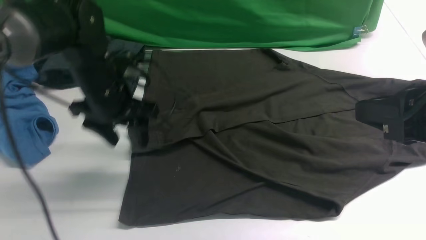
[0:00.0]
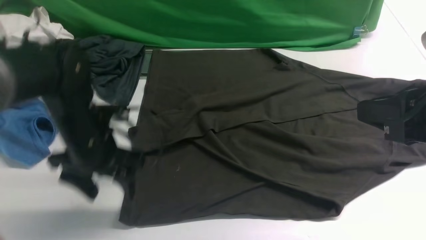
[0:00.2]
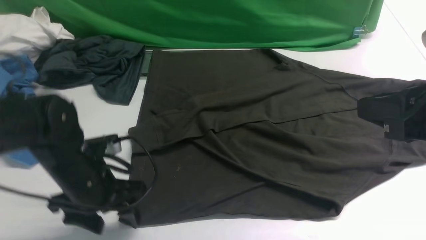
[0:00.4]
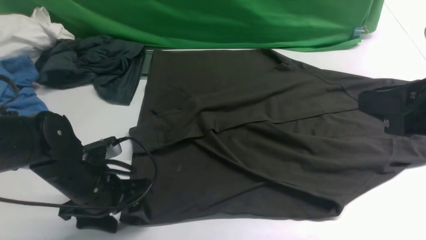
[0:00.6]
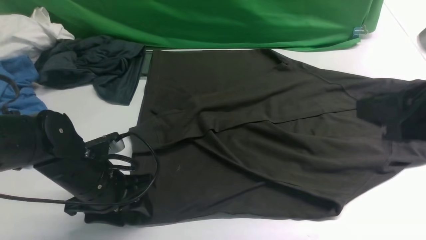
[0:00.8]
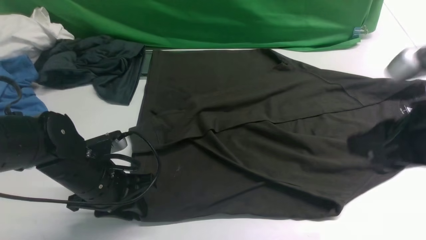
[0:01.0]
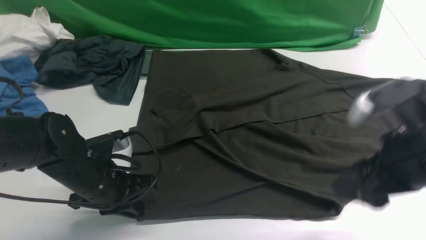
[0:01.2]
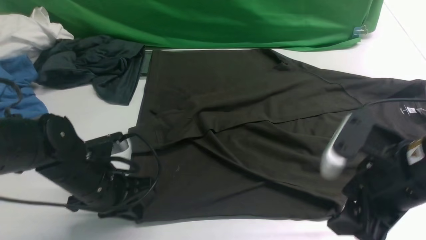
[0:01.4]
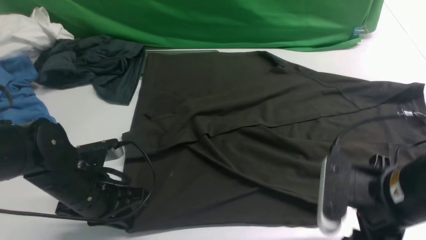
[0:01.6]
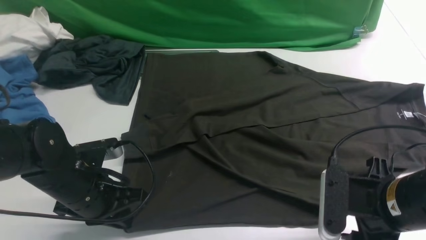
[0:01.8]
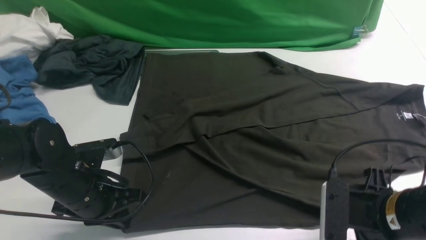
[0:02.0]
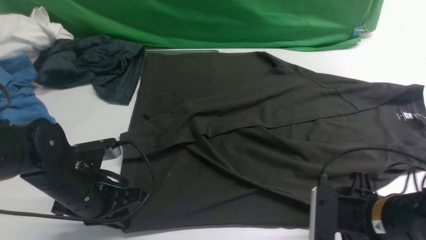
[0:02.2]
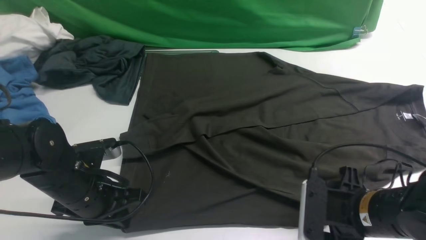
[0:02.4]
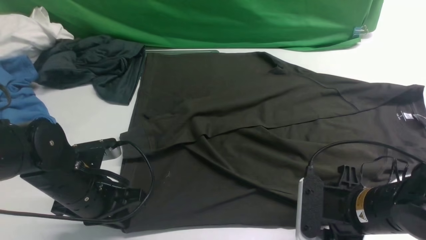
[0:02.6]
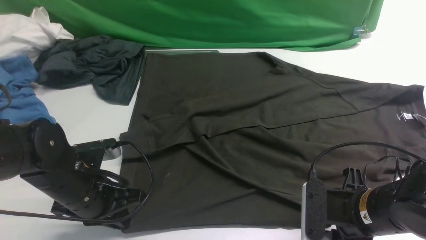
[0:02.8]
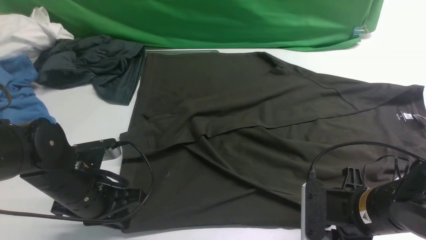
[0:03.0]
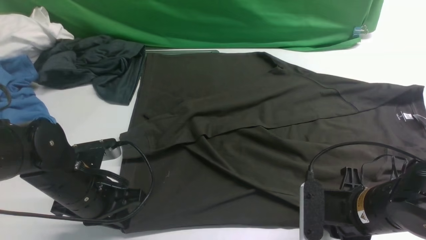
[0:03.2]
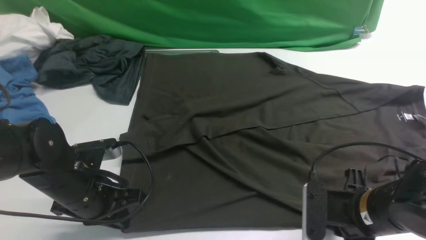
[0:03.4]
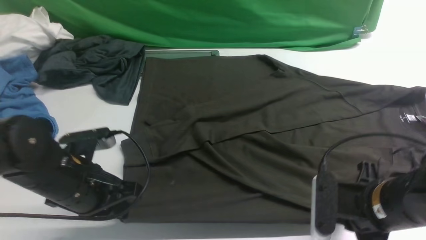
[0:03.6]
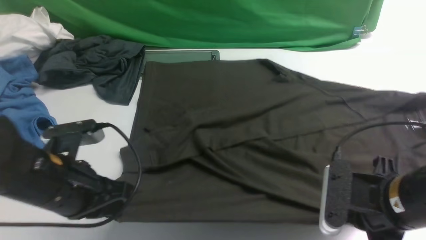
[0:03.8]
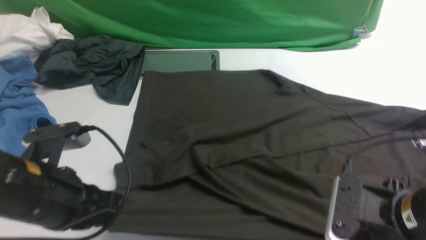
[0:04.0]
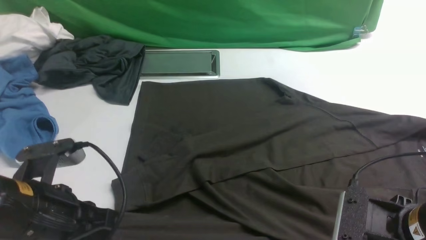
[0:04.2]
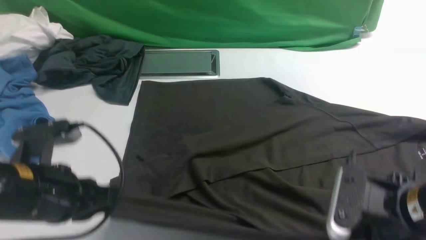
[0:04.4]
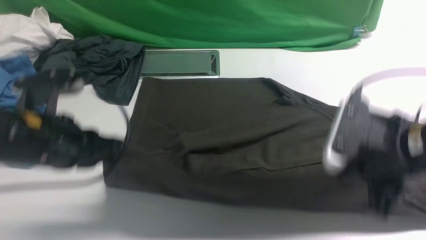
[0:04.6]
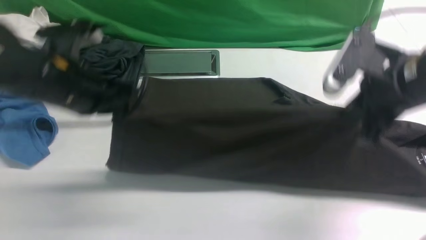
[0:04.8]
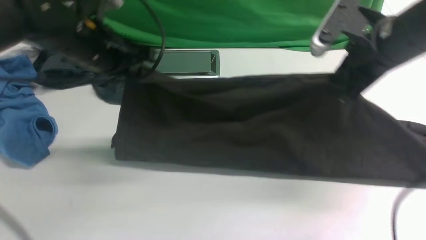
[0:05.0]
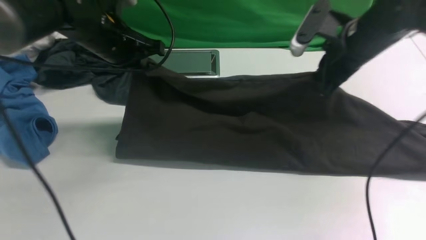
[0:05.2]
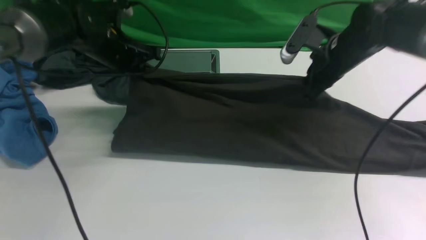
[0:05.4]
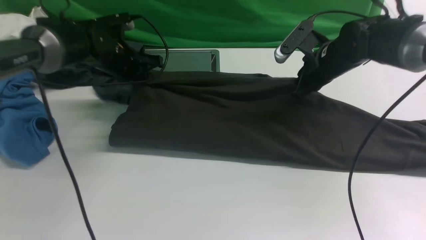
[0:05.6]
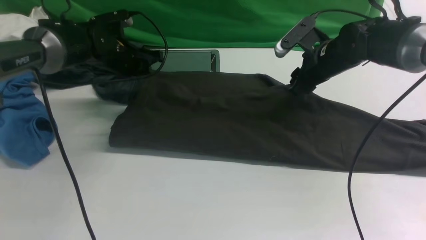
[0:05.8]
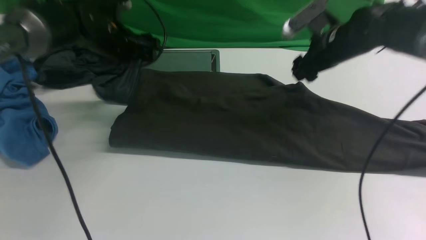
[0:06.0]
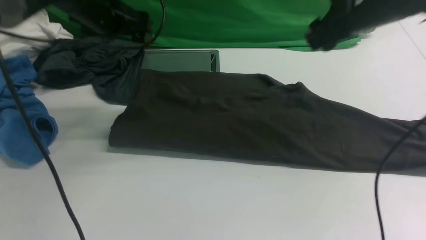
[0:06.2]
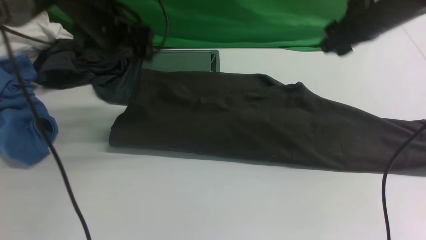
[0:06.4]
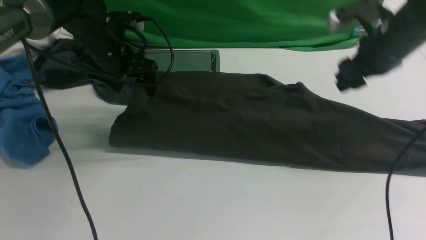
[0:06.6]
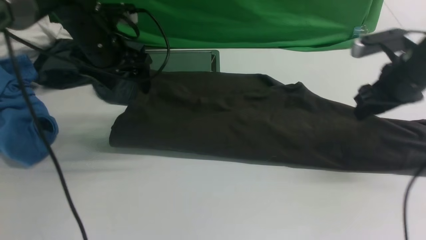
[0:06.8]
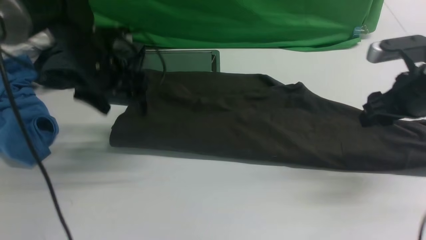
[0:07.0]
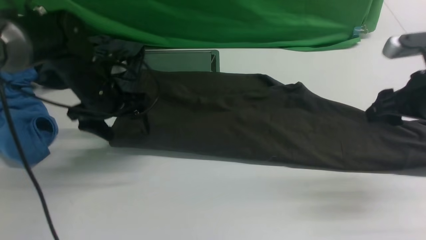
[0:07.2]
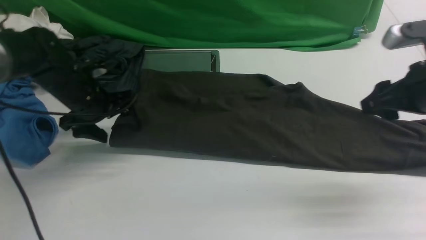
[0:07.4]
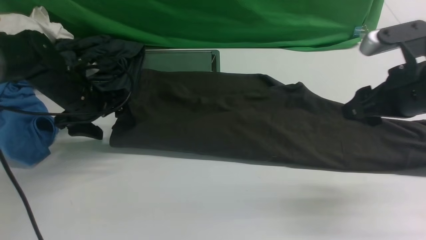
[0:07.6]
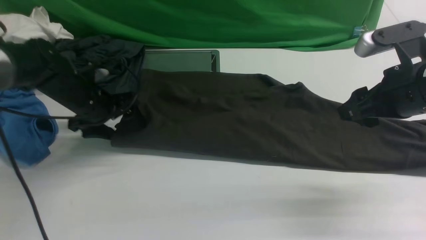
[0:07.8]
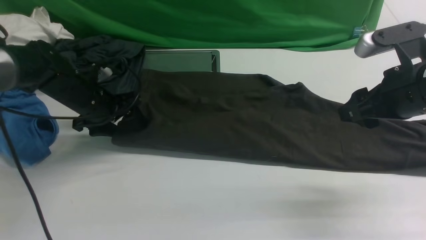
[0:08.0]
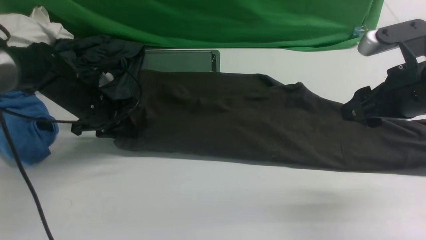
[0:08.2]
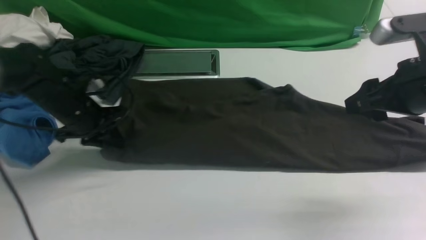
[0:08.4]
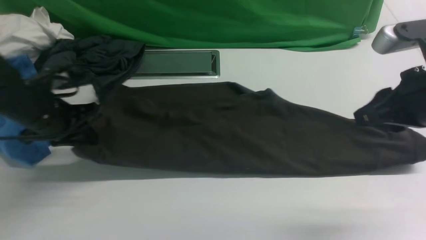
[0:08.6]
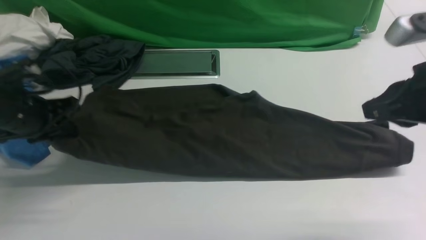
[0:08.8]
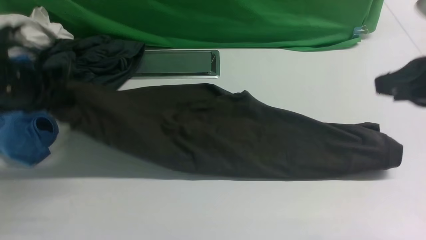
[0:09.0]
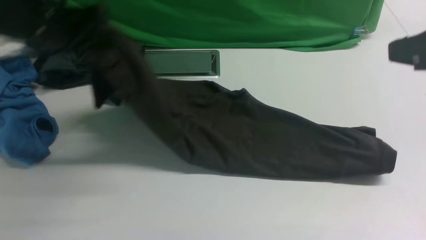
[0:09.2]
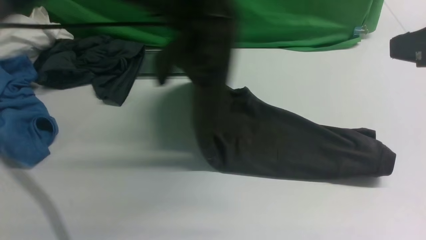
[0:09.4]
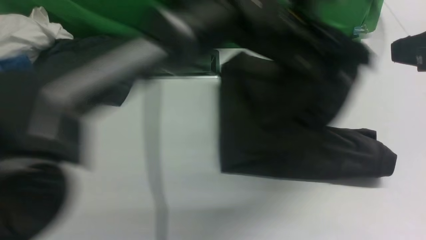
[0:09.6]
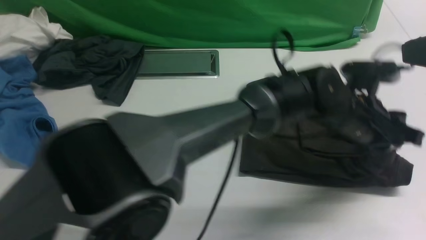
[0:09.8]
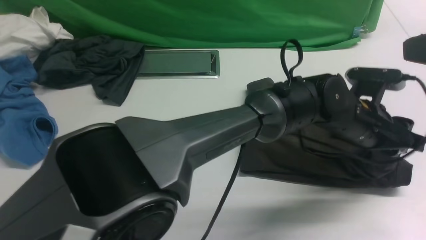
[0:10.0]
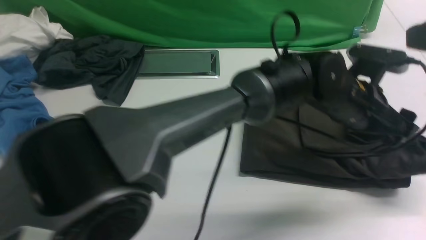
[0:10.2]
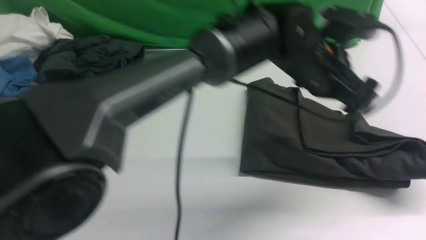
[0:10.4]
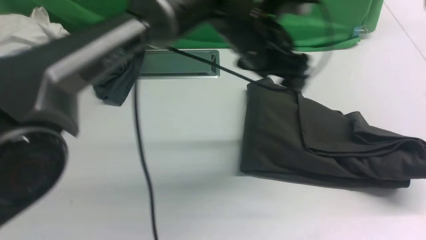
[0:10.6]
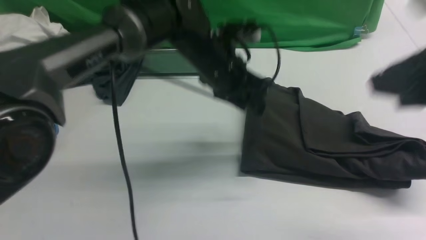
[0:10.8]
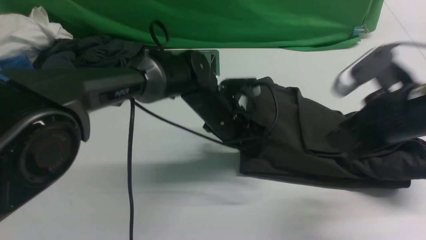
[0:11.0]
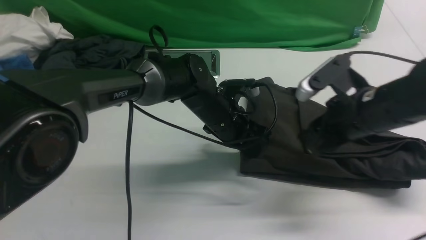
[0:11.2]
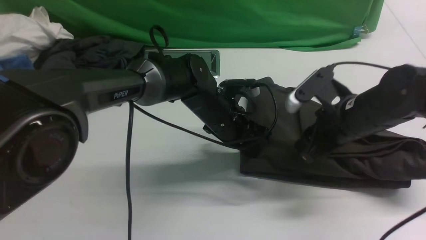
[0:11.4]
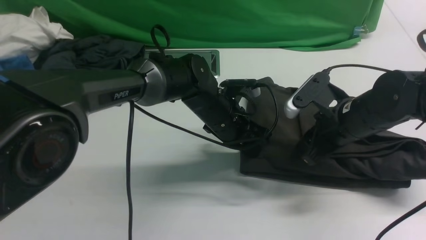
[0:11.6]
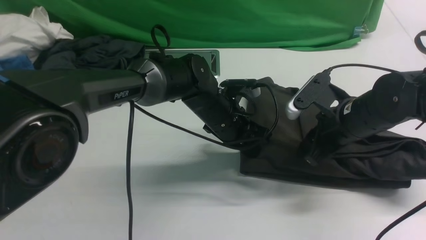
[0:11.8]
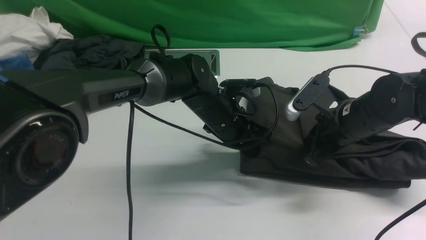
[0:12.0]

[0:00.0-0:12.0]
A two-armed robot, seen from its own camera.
Step, 0:00.2 to 0:03.6: use both arms simultaneously to clamp the lower edge of the clothing fabric.
Step, 0:04.0 to 0:06.0: use both arms to drag the lower edge of the fabric forward and fold it over the upper edge.
Step, 0:06.2 to 0:08.6: Hold the left edge of the fabric with your left arm.
Step, 0:08.8 to 0:10.2: Drag the left edge of the fabric to the left with your left arm and fold it to the right edge.
0:00.0 to 0:01.6: The right gripper shifts approximately 10 cm downward, and opens its fingers, while the left gripper goes about 15 cm backward and downward, and closes up.
0:01.6 to 0:03.0: The right gripper shifts approximately 5 cm downward, and closes up.
0:03.0 to 0:04.4: The two grippers go roughly 10 cm upward. The right gripper closes its fingers.
0:04.4 to 0:06.0: The two grippers go some 25 cm forward. The right gripper opens; the left gripper opens up.
0:06.0 to 0:07.6: The left gripper moves downward and backward, some 10 cm; the right gripper travels backward by some 15 cm.
0:07.6 to 0:09.0: The two grippers go about 10 cm upward and backward. The right gripper closes. The left gripper closes.
0:09.0 to 0:10.4: The right gripper shifts some 5 cm upward. Meanwhile the left gripper travels to the right by roughly 35 cm, and opens.
0:10.4 to 0:12.0: The left gripper moves downward and to the left, roughly 15 cm, and closes its fingers. The right gripper is displaced downward and forward by some 30 cm, and opens, then closes once more.

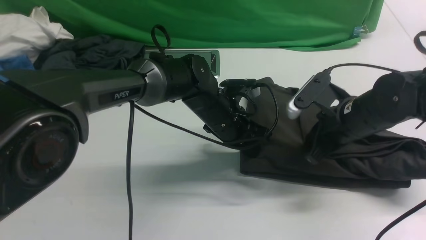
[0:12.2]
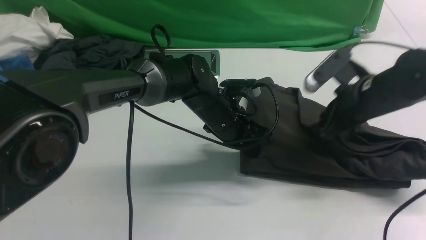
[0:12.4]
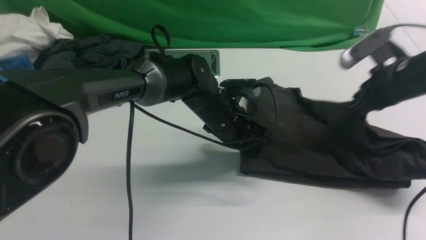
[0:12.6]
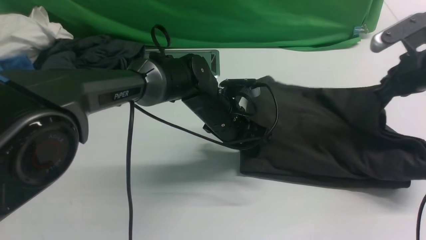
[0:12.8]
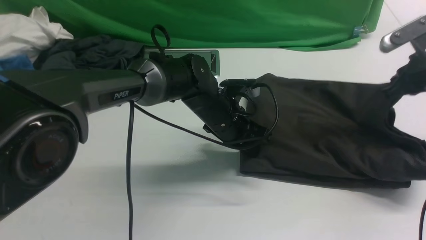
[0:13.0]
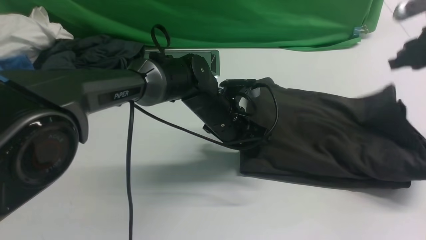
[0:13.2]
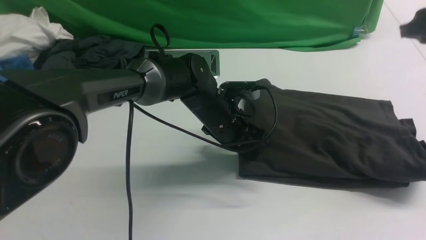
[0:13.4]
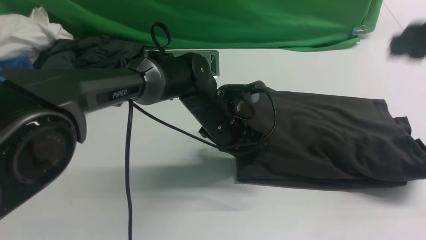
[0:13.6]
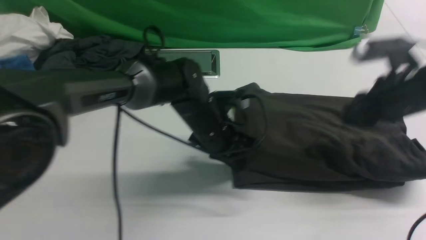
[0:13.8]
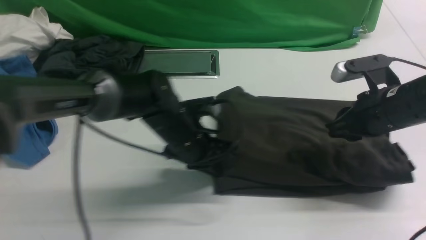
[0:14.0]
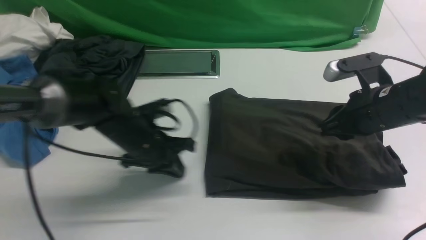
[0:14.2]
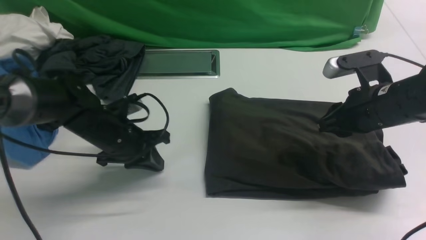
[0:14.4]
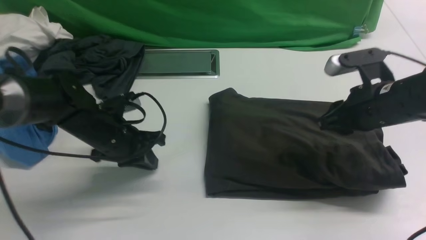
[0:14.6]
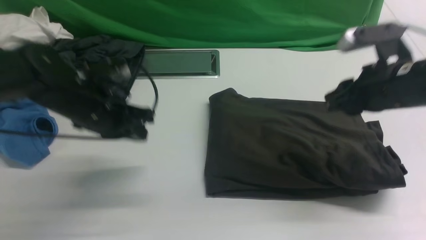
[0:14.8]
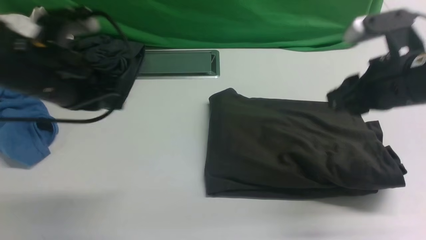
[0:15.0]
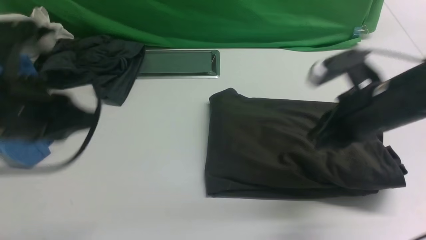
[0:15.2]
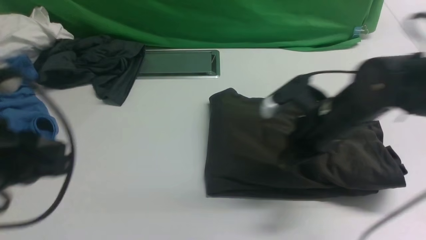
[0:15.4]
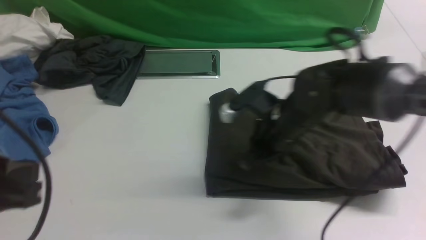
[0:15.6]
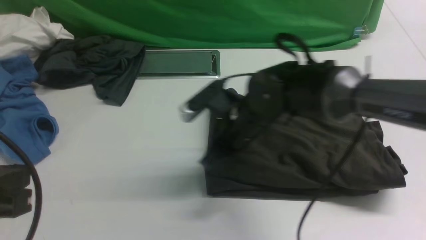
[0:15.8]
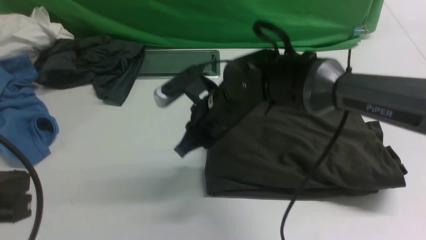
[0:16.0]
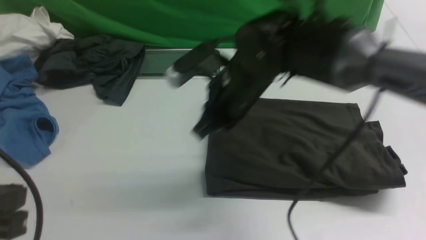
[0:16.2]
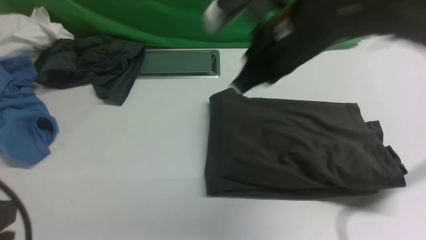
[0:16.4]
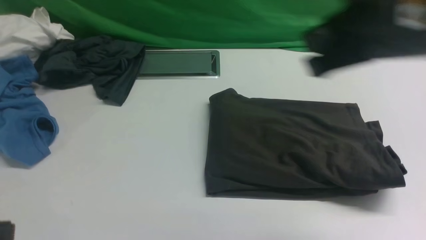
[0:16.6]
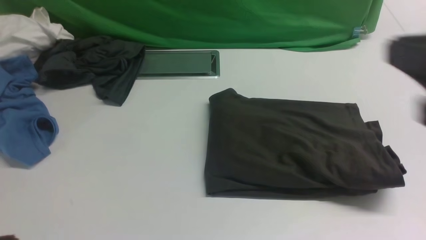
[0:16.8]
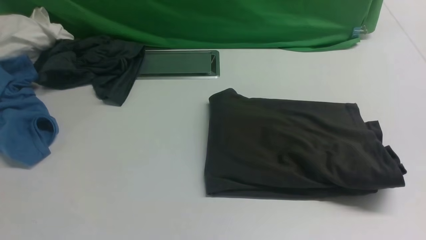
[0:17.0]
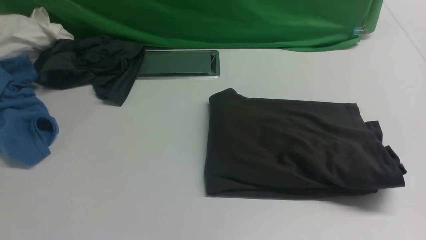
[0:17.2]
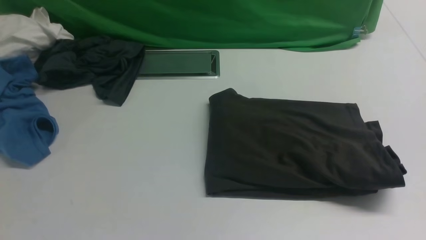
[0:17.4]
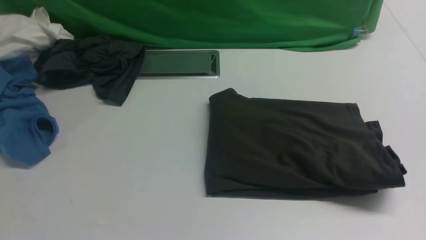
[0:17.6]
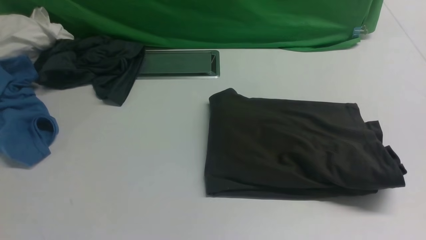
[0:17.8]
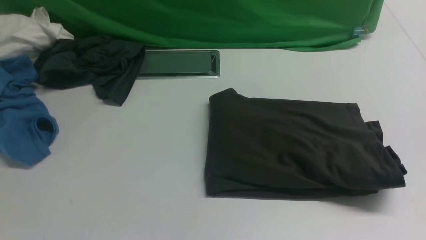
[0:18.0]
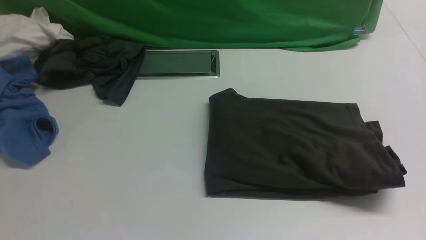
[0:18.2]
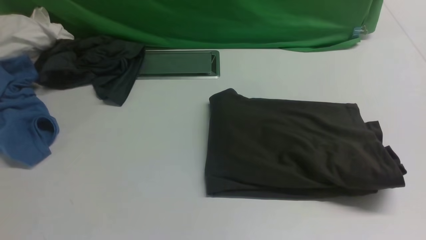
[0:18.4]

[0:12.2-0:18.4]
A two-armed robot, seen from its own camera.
0:12.2 to 0:13.8: The right gripper heads to the right, covering some 5 cm, and opens.
0:13.8 to 0:15.4: The left gripper heads backward, to the left and upward, covering some 35 cm. Meanwhile the right gripper goes approximately 10 cm to the left, and closes its fingers.
0:15.4 to 0:16.8: The left gripper travels backward by roughly 15 cm. Meanwhile the right gripper heads upward, backward and to the right, covering some 25 cm.
0:16.8 to 0:18.4: The left gripper heads downward, covering some 10 cm. The right gripper is displaced backward by roughly 10 cm.
